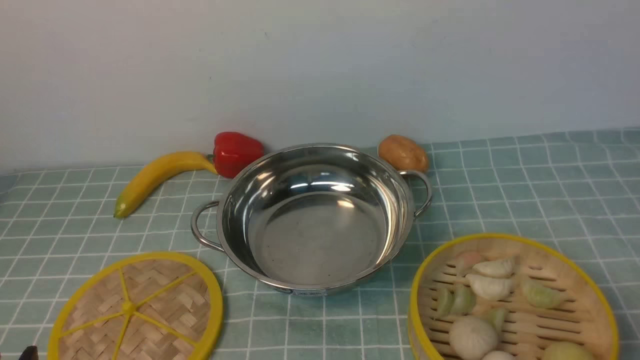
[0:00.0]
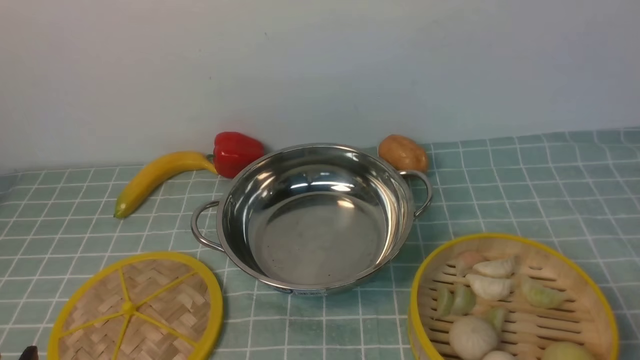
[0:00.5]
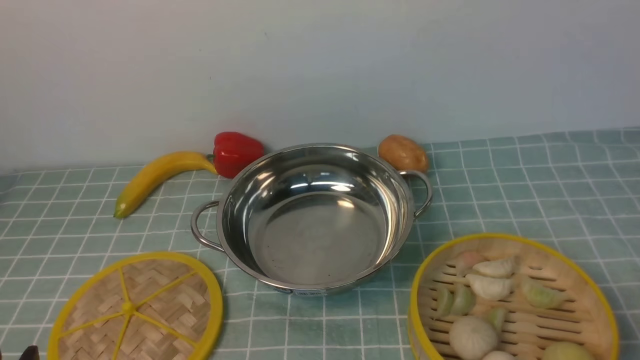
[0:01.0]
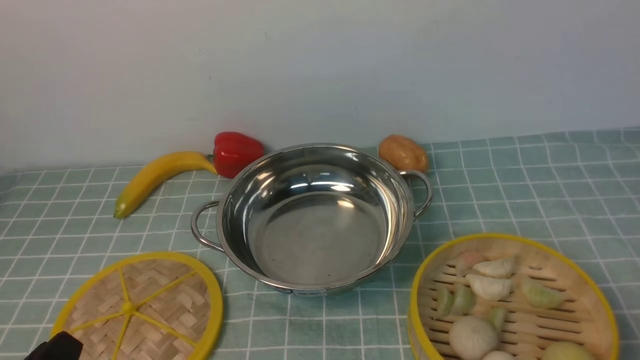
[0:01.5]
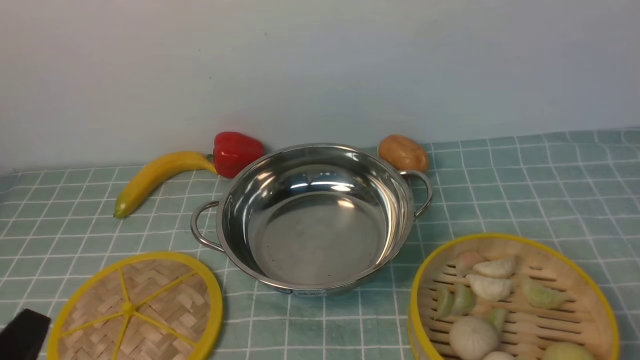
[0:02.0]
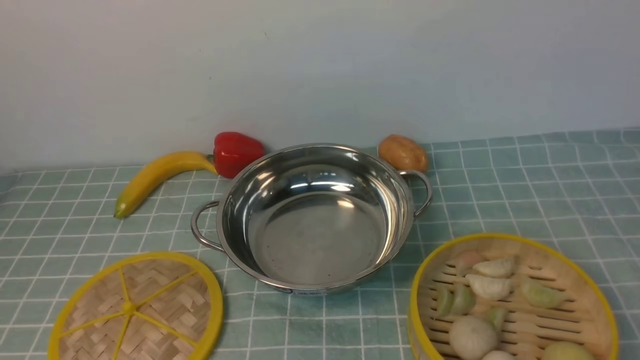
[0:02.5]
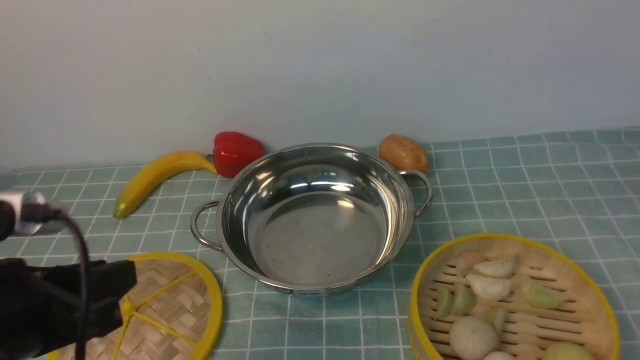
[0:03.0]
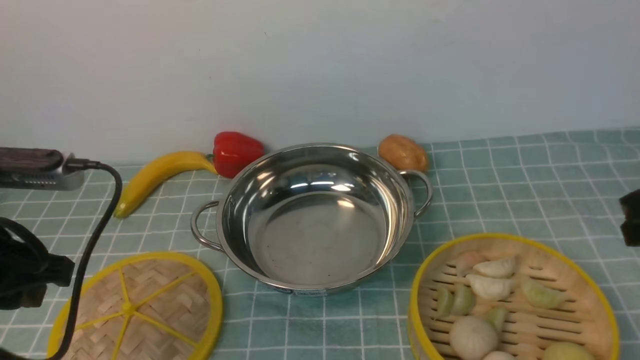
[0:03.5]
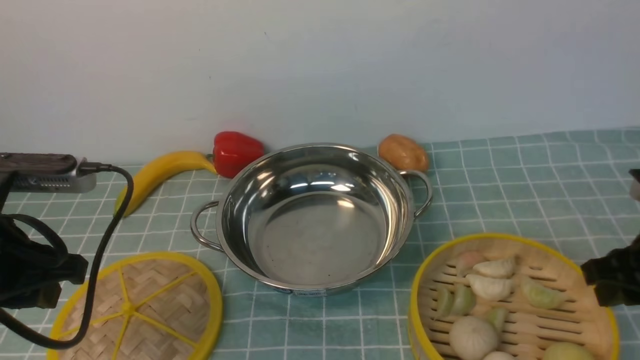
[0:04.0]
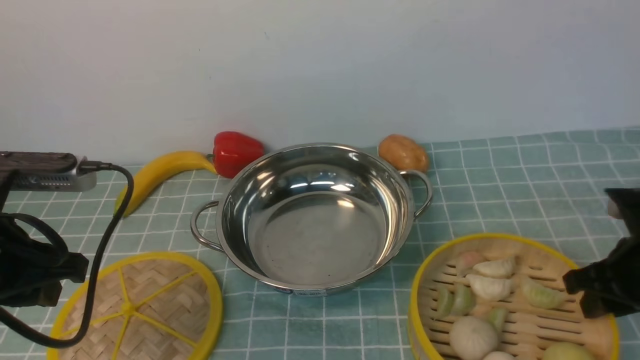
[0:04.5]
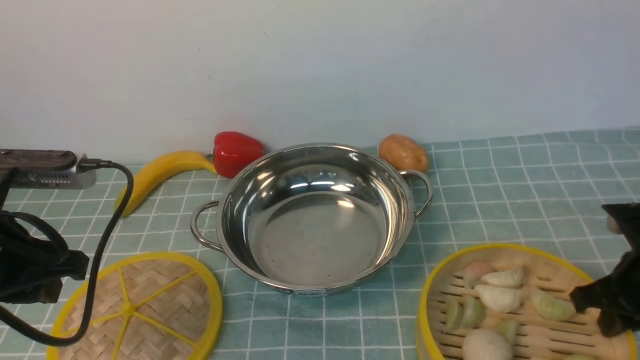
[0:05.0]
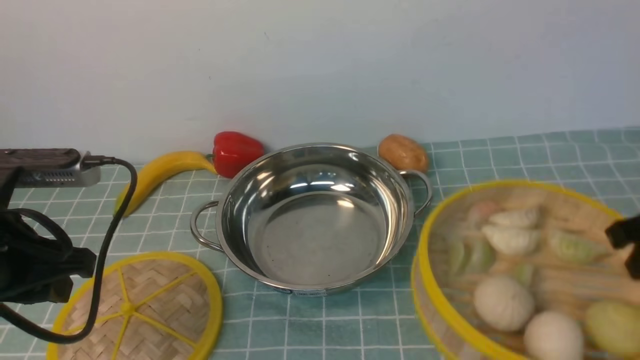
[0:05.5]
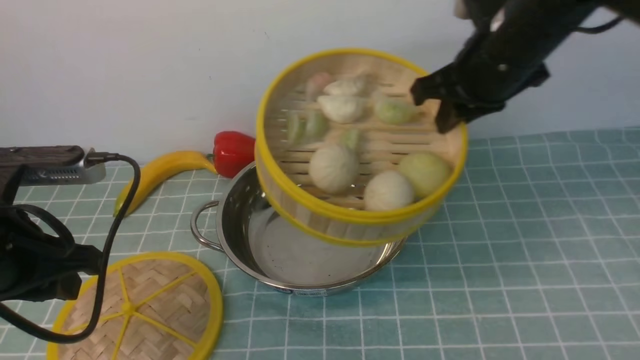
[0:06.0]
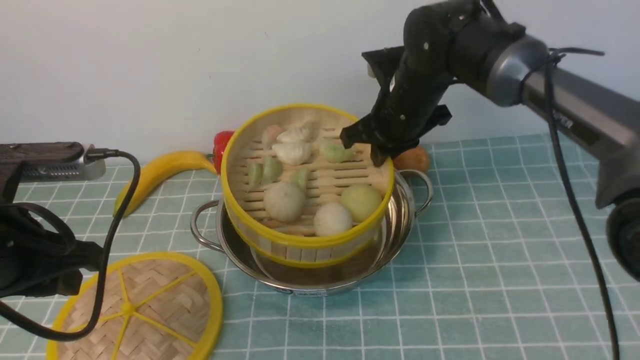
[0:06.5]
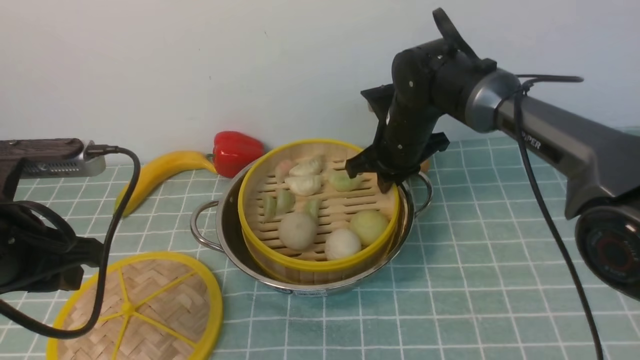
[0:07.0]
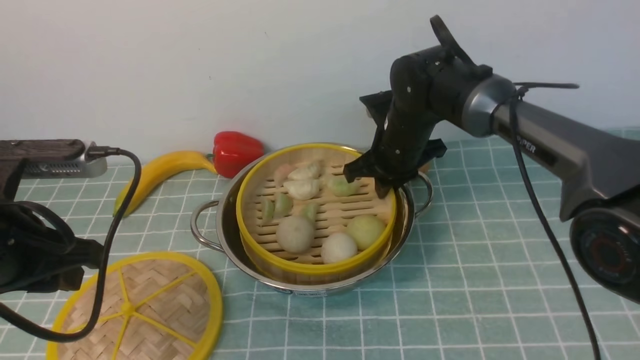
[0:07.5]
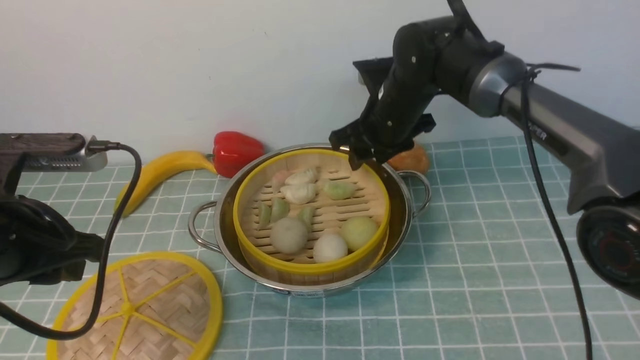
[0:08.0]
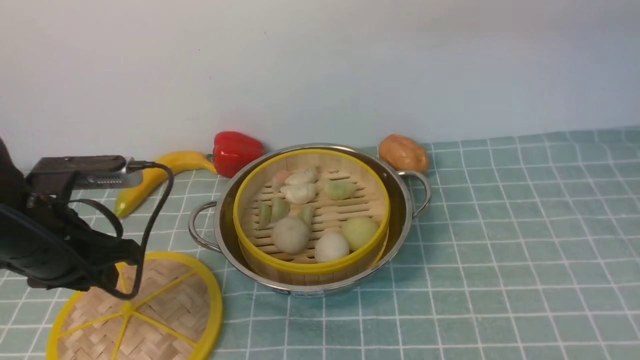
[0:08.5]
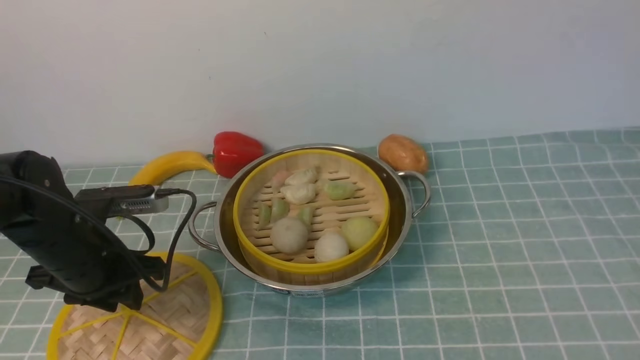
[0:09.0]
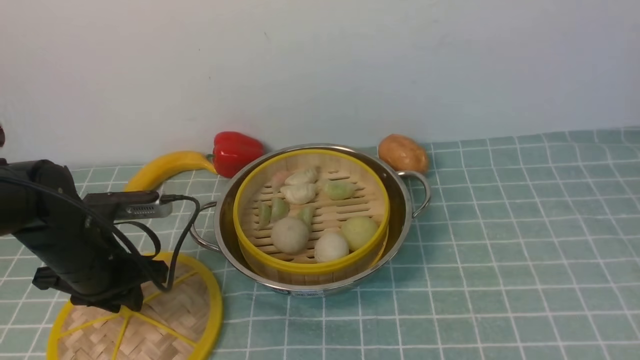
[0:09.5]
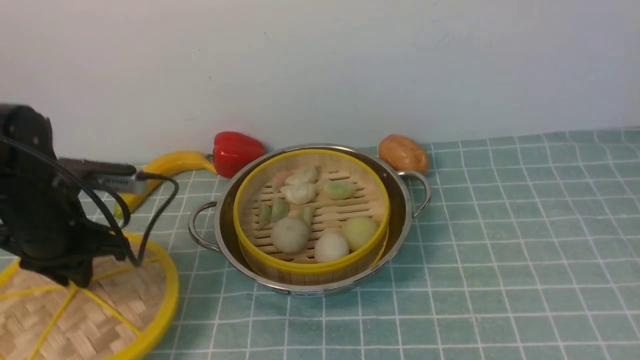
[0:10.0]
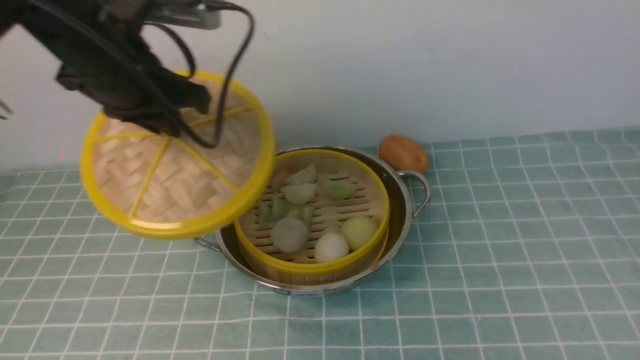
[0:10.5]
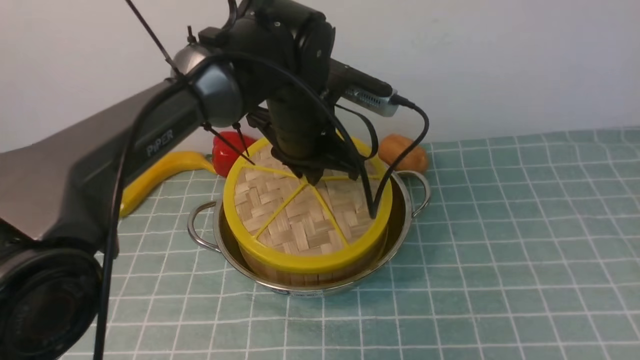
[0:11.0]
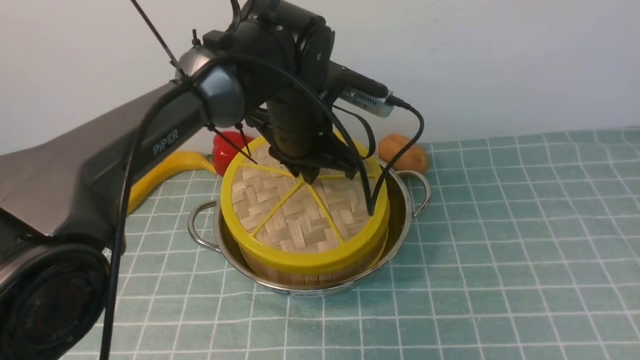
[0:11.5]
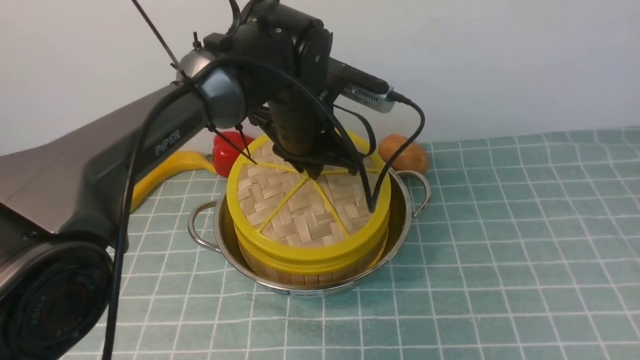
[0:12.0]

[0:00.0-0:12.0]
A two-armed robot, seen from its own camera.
Task of the whole recording: place the steamer in the pot on the blue tablecloth, and put the lid on the steamer.
Step, 0:00.0 to 0:05.5: use the right arm to lift the steamer closest to it.
Step, 0:06.0 to 0:08.0: use the right arm to put the steamer into the iron steamer pot in the middle.
Step, 0:08.5 to 0:10.0: use the left arm to lift the lid of the steamer.
0:02.0 to 0:04.0: Both grippers travel together forward, roughly 20 cm.
0:04.0 to 0:06.0: The right gripper is displaced to the left, forward and upward by about 25 cm, and closes its fingers.
0:06.0 to 0:08.0: The right gripper goes about 15 cm downward, to the left and forward, and opens.
0:08.0 to 0:10.0: The right gripper heads backward, upward and to the right, covering some 50 cm, while the left gripper moves forward, roughly 10 cm.
0:10.0 to 0:12.0: The left gripper is displaced to the right by about 25 cm.

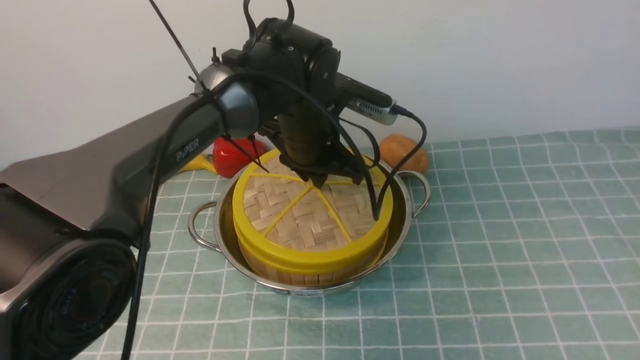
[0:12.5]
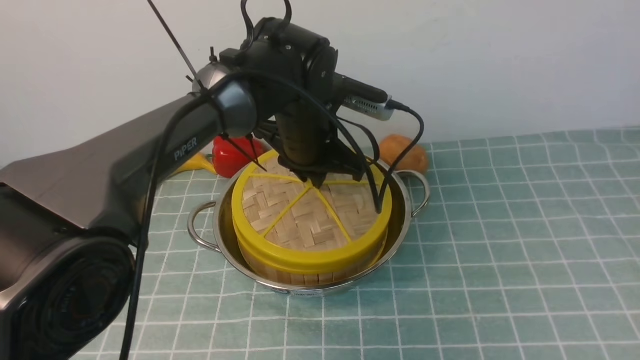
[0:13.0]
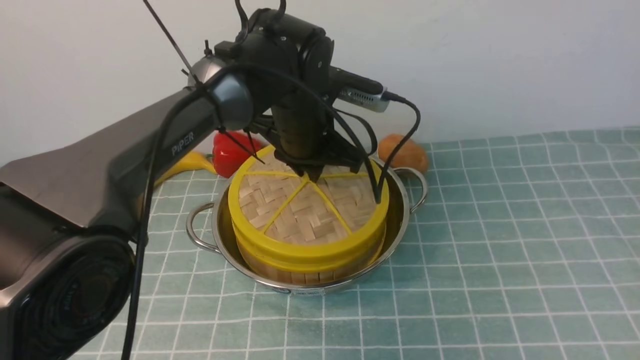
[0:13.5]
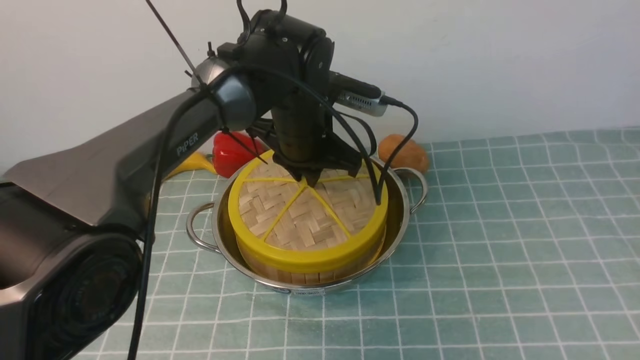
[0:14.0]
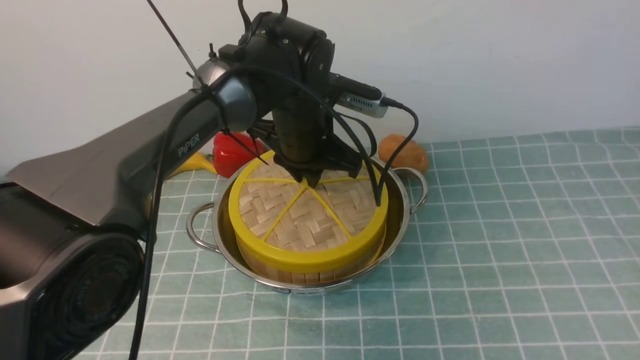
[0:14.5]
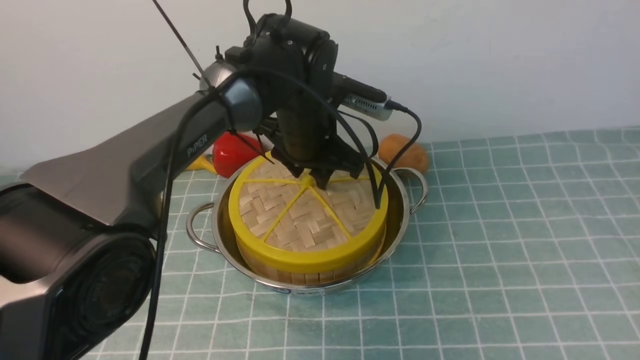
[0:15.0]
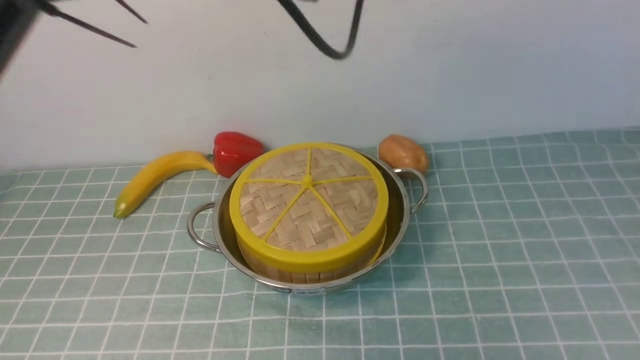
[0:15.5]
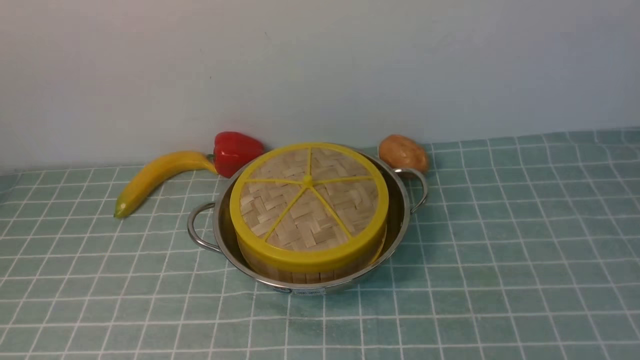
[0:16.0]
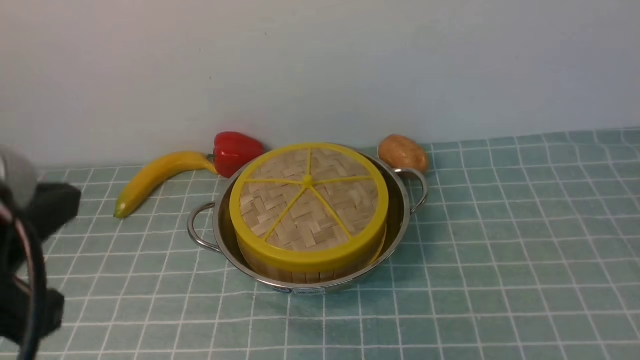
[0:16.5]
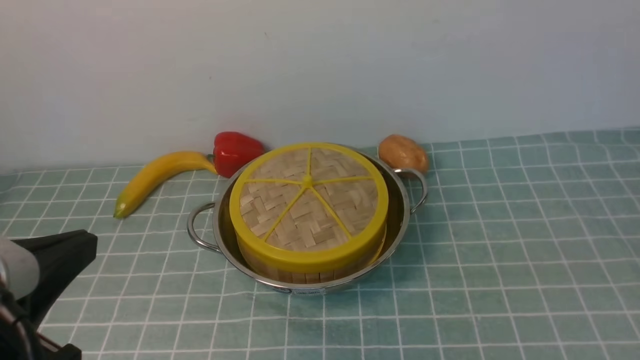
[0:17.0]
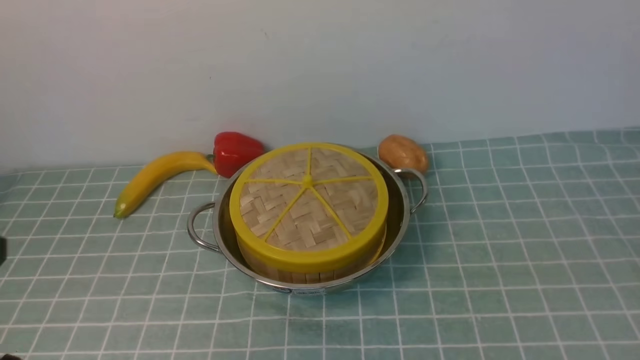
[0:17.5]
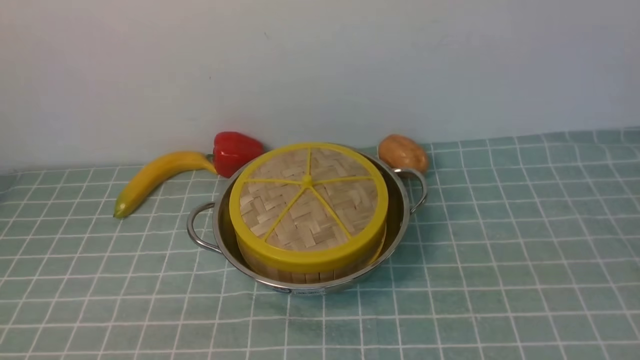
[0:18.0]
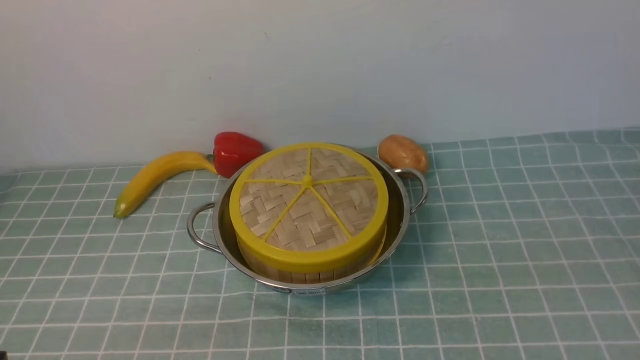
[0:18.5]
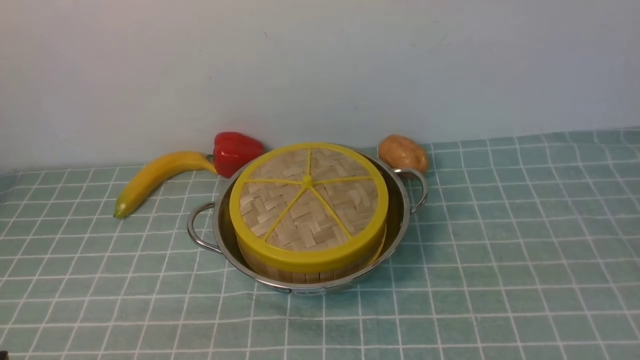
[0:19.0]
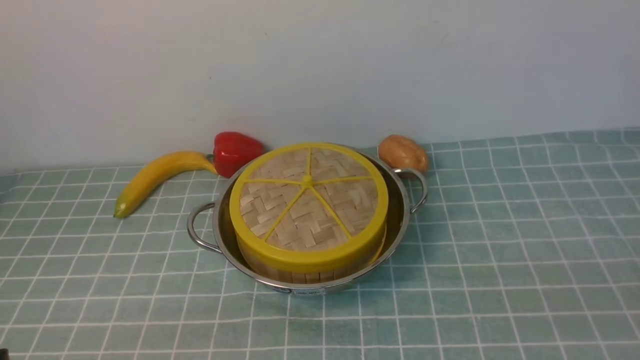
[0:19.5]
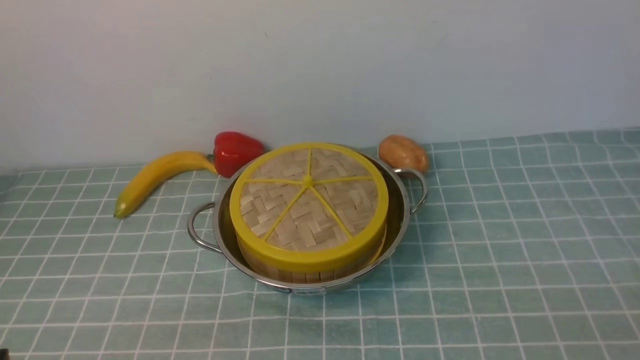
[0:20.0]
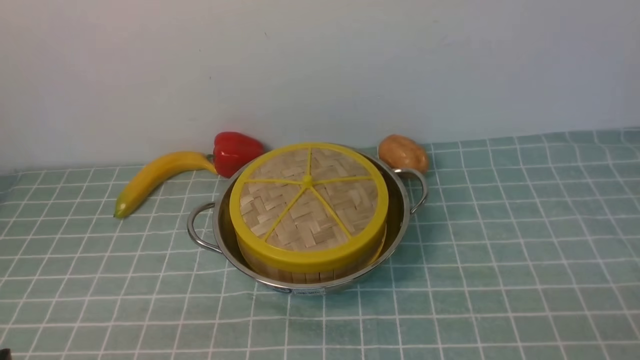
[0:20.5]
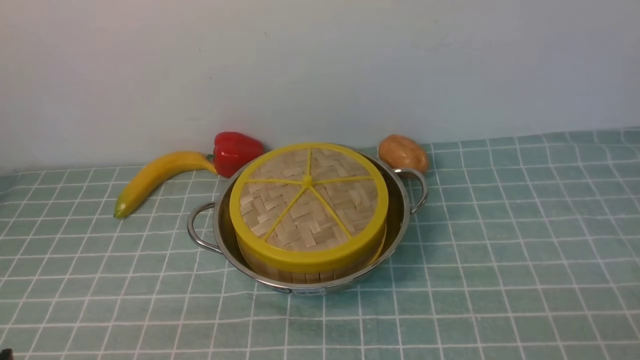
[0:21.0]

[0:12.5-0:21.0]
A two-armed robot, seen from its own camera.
Task of the whole recording: place the steamer in the pot on the blue tablecloth, and put the lid on the steamer.
Step, 0:12.5 to 0:15.5: use the left arm to place the steamer lid on the steamer.
0:12.5 to 0:14.5: There are only small adjustments of the grippers.
0:14.5 to 0:16.5: The right gripper shifts roughly 15 cm downward, and closes up; the left gripper goes approximately 40 cm backward, to the left and upward, and opens, then closes once more.
0:16.5 to 0:19.0: The left gripper moves downward, approximately 20 cm.
